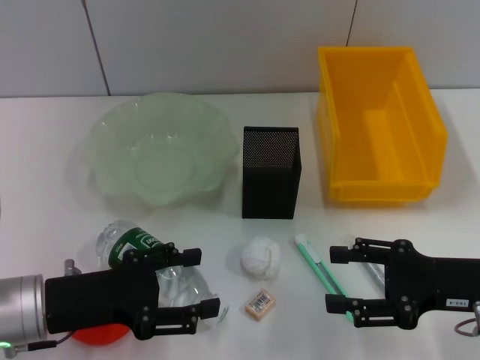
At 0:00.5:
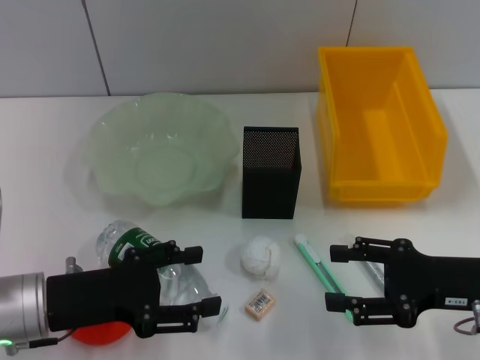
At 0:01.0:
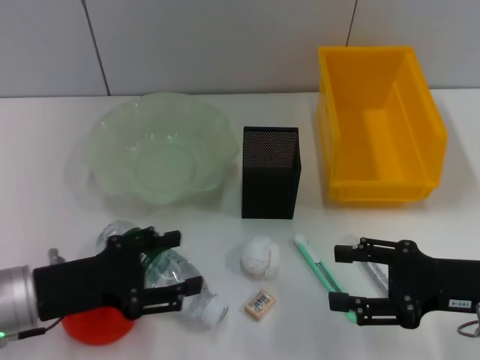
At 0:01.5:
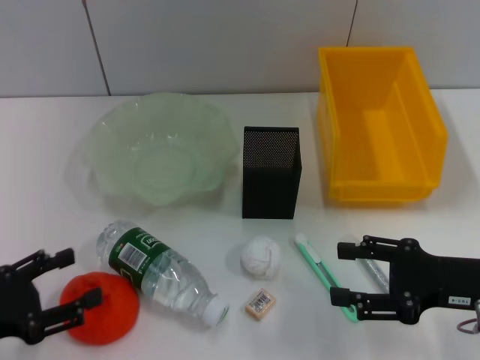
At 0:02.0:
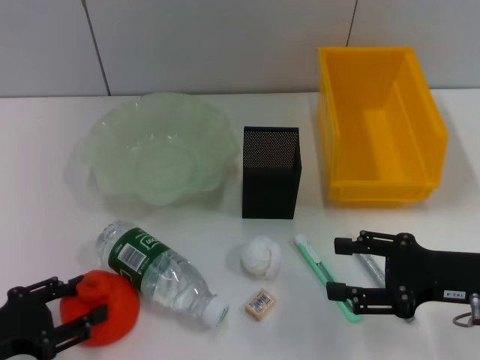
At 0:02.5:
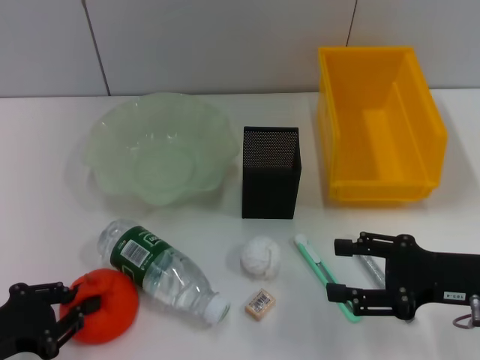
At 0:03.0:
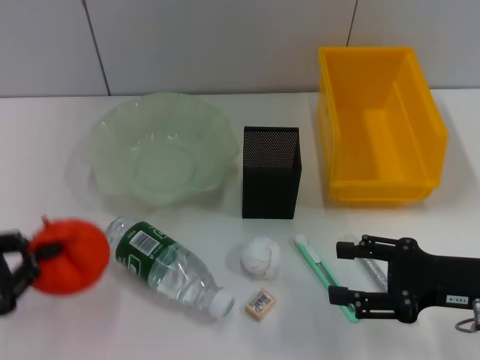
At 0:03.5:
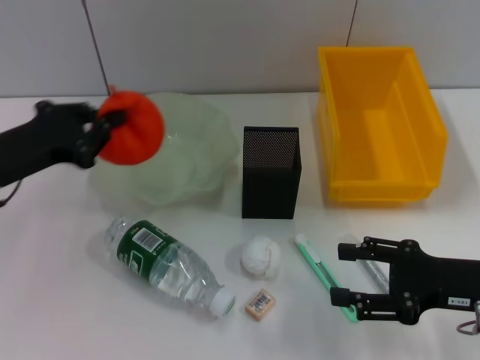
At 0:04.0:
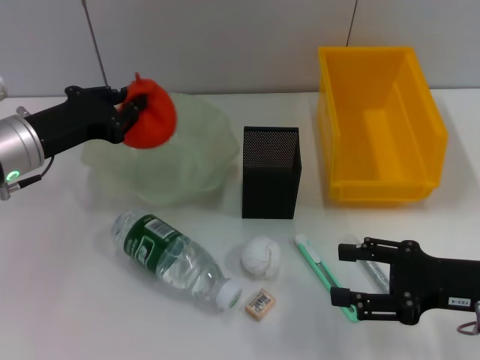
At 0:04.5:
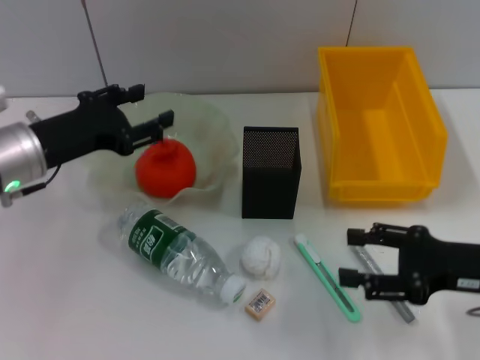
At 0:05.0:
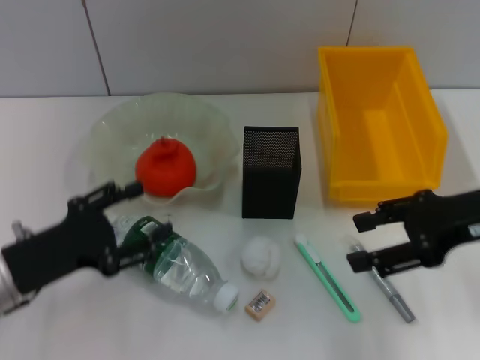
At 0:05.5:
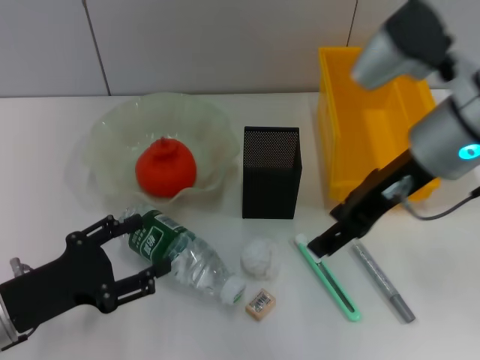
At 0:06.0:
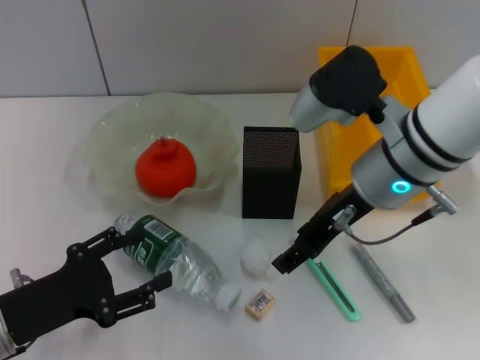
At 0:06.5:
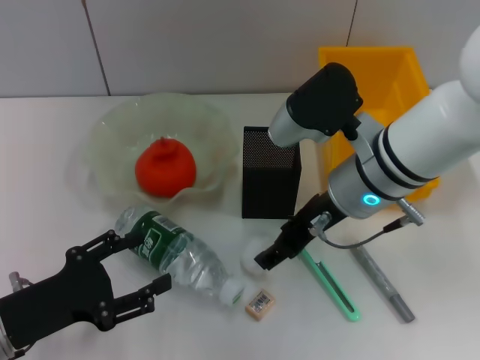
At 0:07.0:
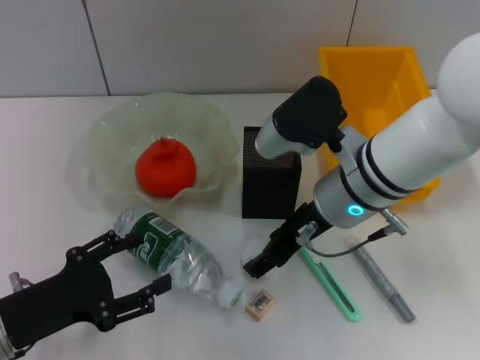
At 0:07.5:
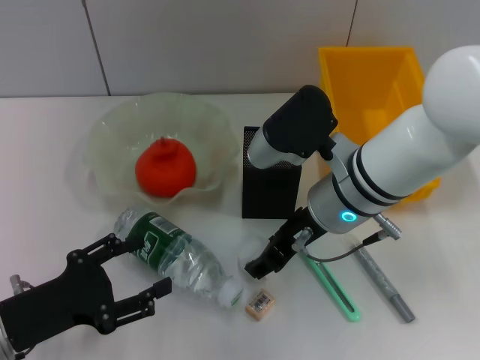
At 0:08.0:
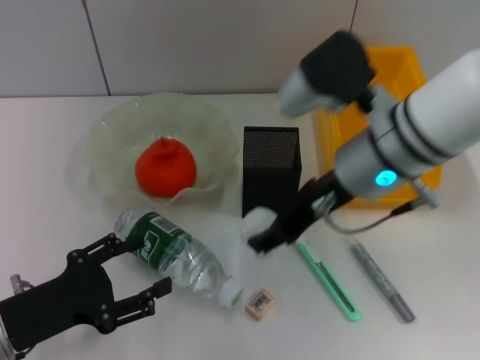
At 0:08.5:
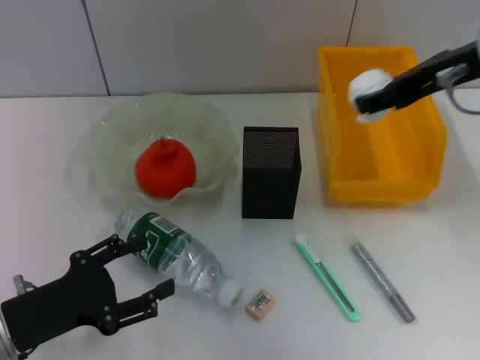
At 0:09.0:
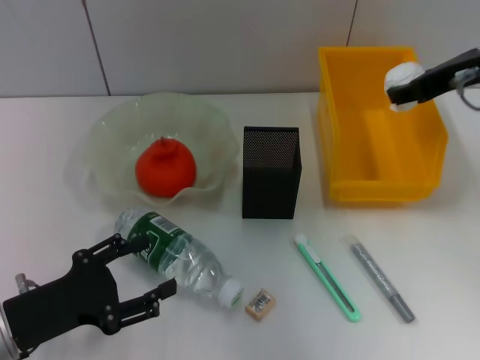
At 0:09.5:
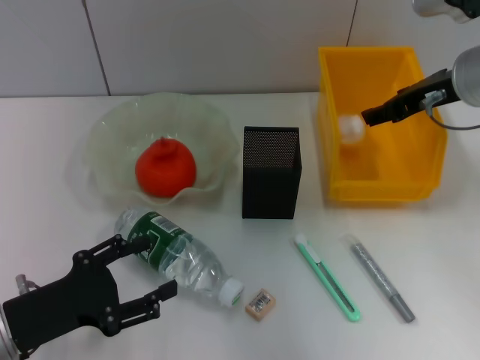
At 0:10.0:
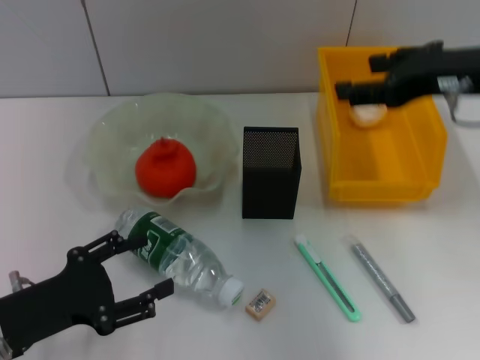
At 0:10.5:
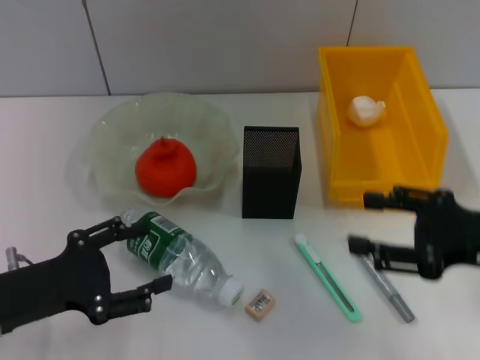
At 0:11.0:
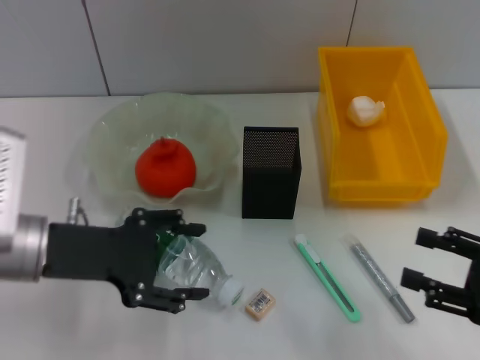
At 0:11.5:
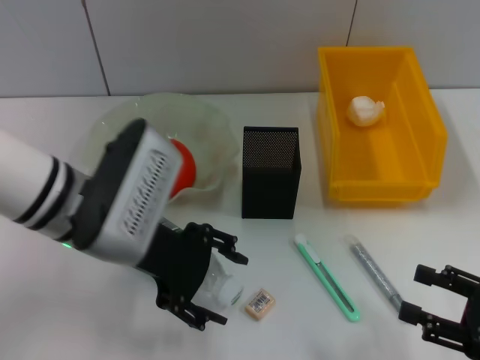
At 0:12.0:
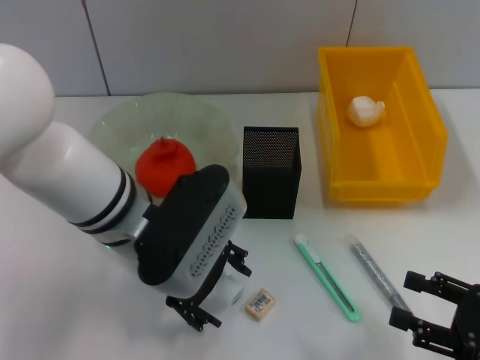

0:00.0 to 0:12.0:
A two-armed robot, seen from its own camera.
Step, 0:00.0 to 0:02.0: Grab the orange with the left hand.
Step, 0:02.5 to 0:04.0: Place the orange into the fruit bowl with the left hand.
Step, 0:04.5 to 0:07.0: Grab the paper ball with the right hand.
Step, 0:08.0 to 0:09.5: Place the paper ball into the trash can with the right hand.
0:00.0 to 0:02.0: The left gripper moves to the left and backward, roughly 10 cm.
0:02.0 to 0:04.0: The left gripper is displaced forward and to the right by roughly 20 cm, and closes its fingers.
0:04.0 to 0:06.0: The left gripper shifts about 15 cm backward and downward, and opens its fingers, while the right gripper is displaced to the left, upward and forward by roughly 20 cm.
0:06.0 to 0:08.0: The grippers move only a little.
0:08.0 to 0:10.0: The right gripper shifts some 10 cm to the right.
0:10.0 to 0:12.0: The right gripper travels downward, backward and to the right by approximately 25 cm; the left gripper shifts some 20 cm to the right, forward and upward.

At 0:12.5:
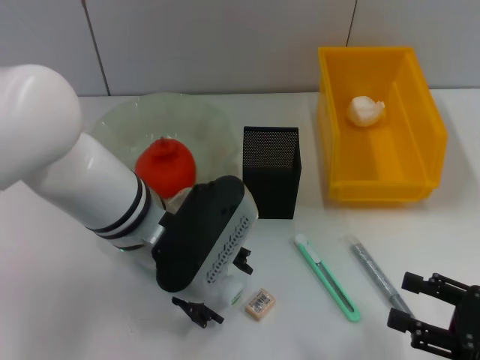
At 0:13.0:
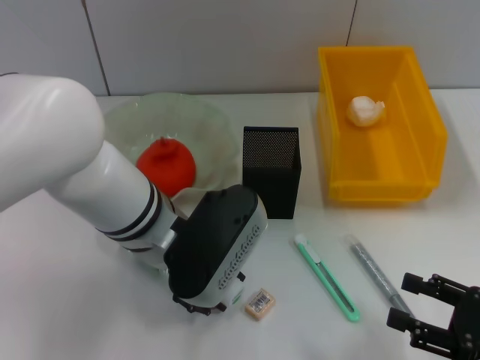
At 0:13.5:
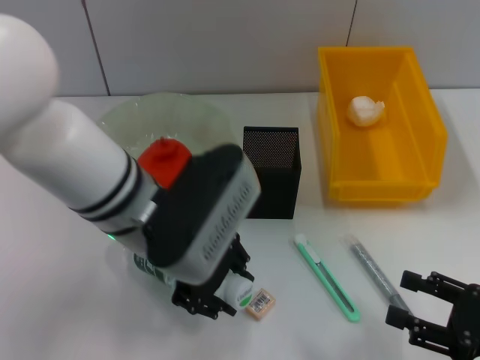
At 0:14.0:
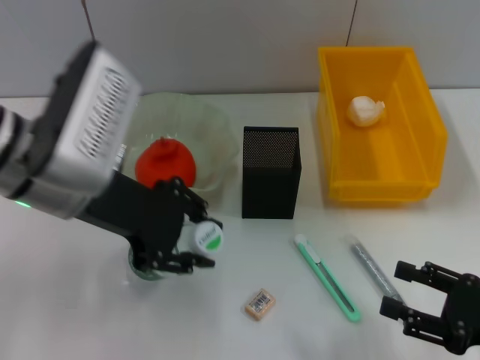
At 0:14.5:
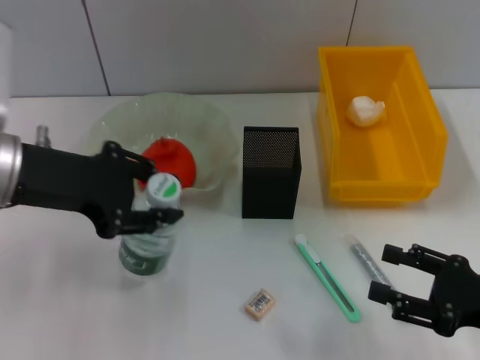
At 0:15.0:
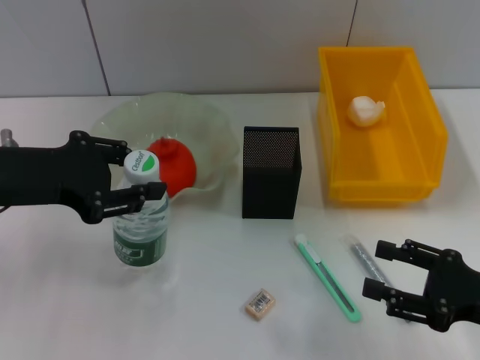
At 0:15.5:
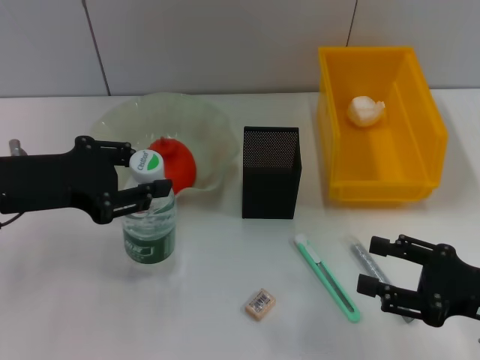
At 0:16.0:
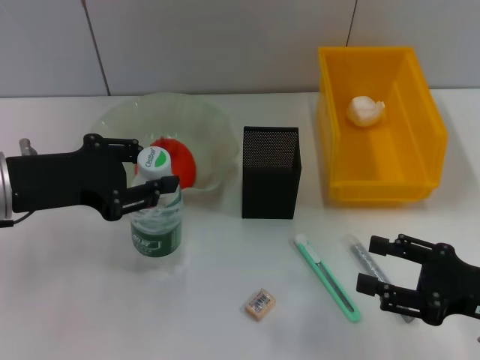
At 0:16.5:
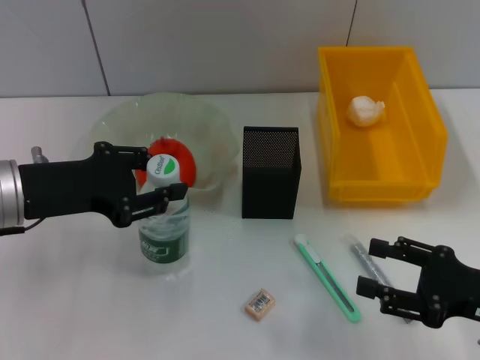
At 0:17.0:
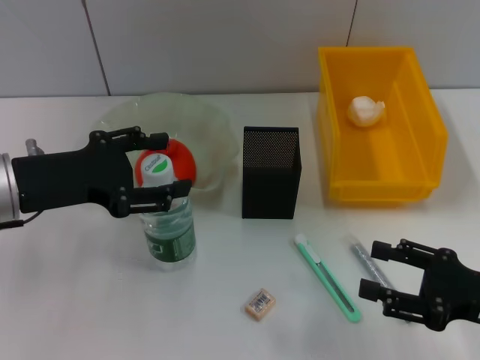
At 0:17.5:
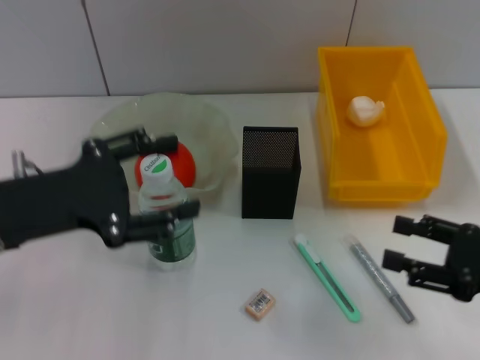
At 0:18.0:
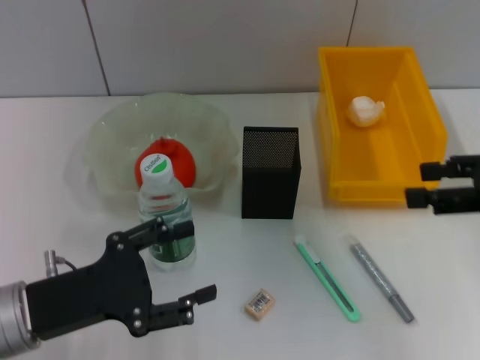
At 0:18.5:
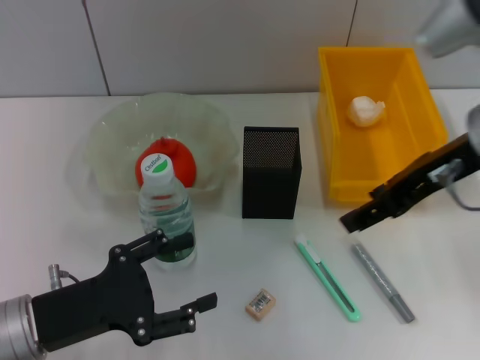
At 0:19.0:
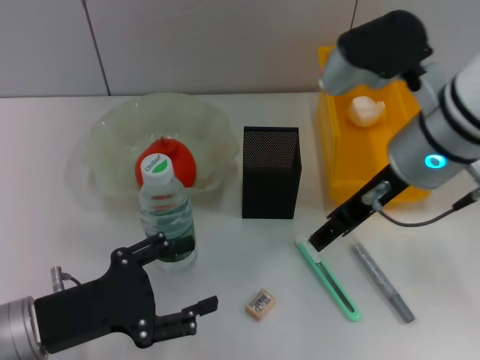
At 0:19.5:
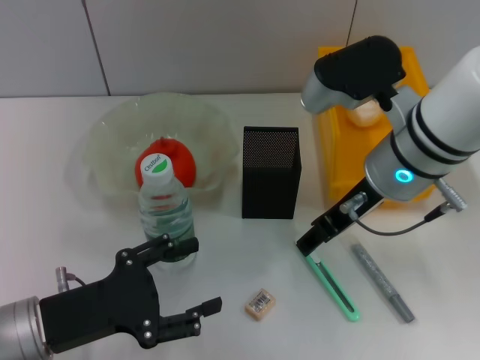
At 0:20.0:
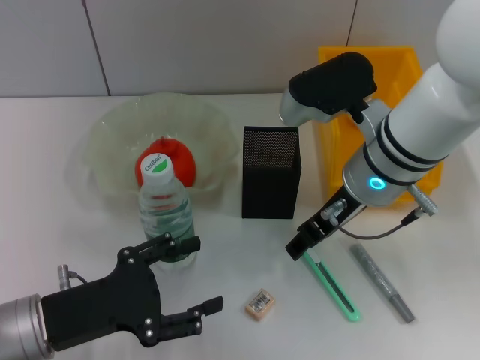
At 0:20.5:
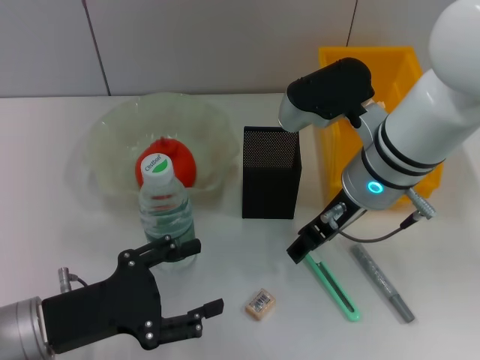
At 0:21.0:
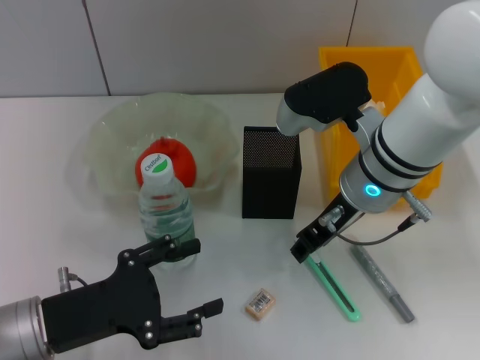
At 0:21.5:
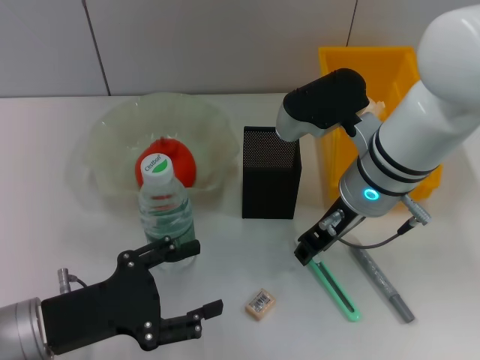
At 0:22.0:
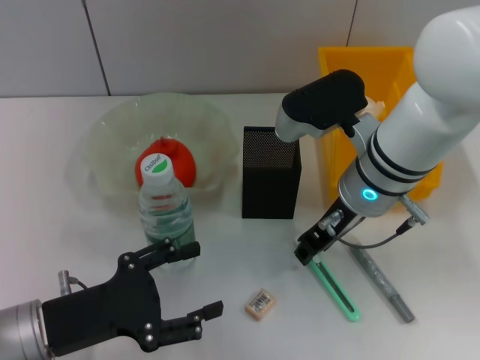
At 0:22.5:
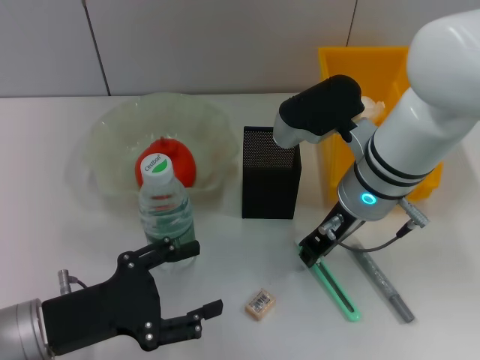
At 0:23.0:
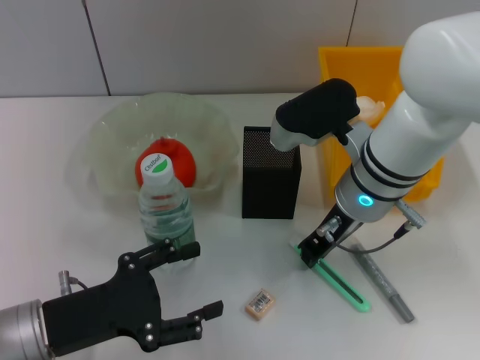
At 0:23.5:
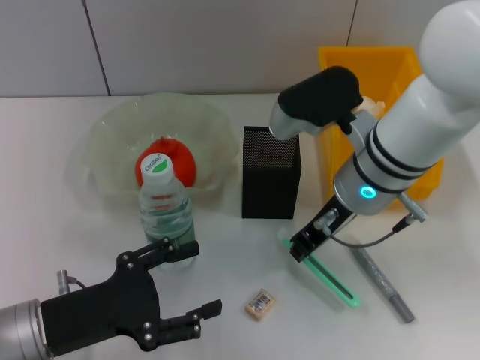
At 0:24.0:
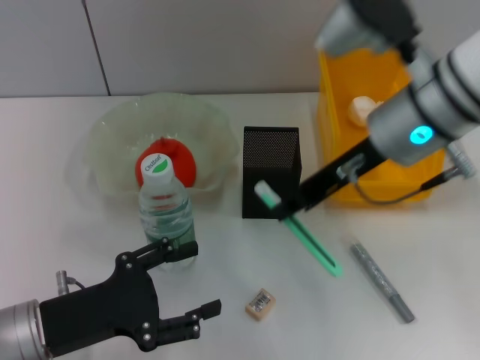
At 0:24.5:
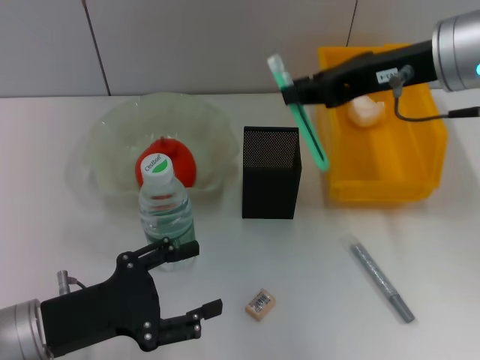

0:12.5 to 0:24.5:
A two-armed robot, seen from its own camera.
Step, 0:13.0 to 0:16.5: Place the water bottle on the table with the left hand.
Step, 0:17.0 to 0:23.0: Grab the blue utility knife with the right hand.
0:12.5 to 0:14.5: The left gripper shifts approximately 15 cm to the left and upward, and closes its fingers.
0:14.5 to 0:16.5: The left gripper is displaced downward by about 5 cm.
0:16.5 to 0:18.5: The right gripper goes some 25 cm upward, to the left and forward. The left gripper is displaced backward and downward by approximately 15 cm, and opens its fingers.
0:18.5 to 0:20.5: The right gripper heads downward and to the left, covering some 10 cm.
0:20.5 to 0:22.5: The right gripper closes up.
0:22.5 to 0:24.5: The right gripper travels upward and to the right by roughly 15 cm.

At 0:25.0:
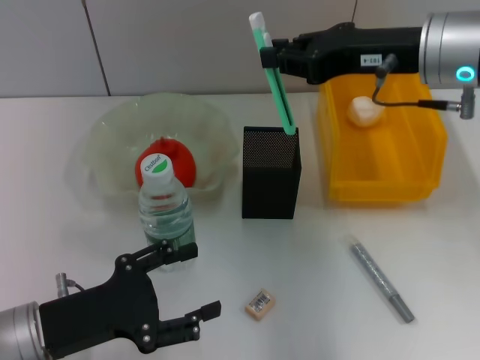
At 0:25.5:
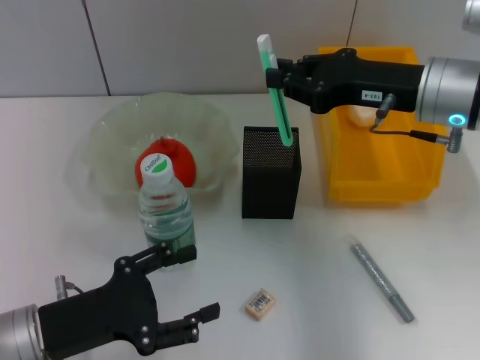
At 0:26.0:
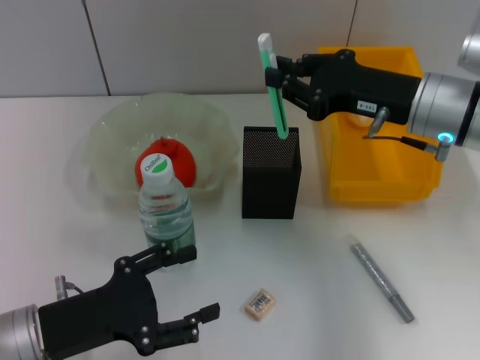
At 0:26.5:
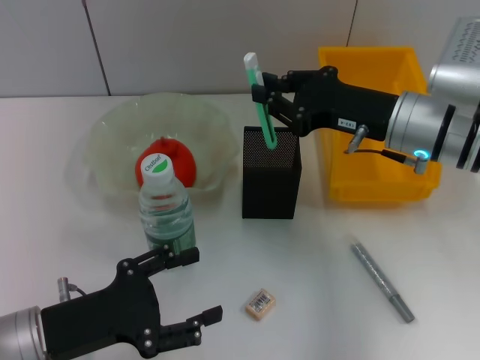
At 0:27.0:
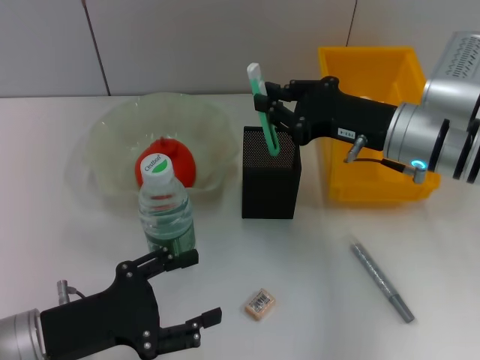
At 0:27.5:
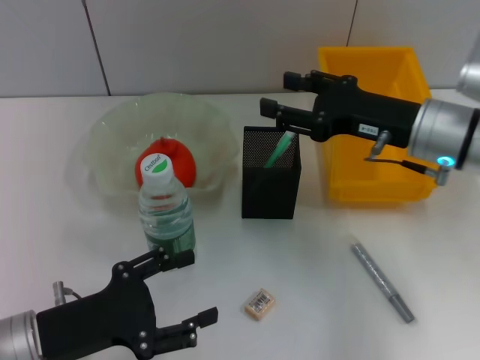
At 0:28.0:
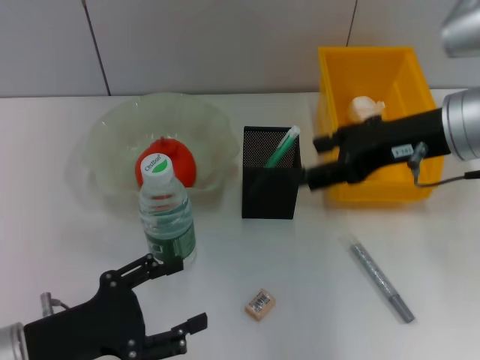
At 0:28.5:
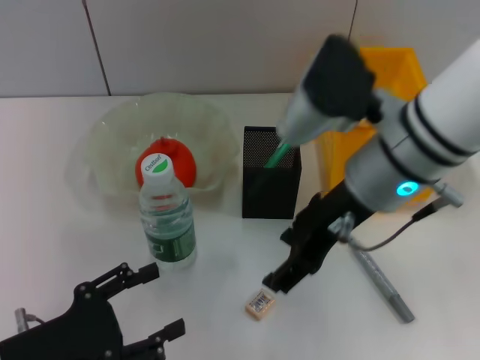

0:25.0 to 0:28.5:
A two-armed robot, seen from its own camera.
Step, 0:25.0 to 0:27.5: Place the blue utility knife into the pen holder with the right hand.
0:25.0 to 0:27.0: The right gripper travels downward by about 10 cm.
0:27.0 to 0:28.5: The right gripper is displaced to the left, upward and backward by about 10 cm, and opens.
